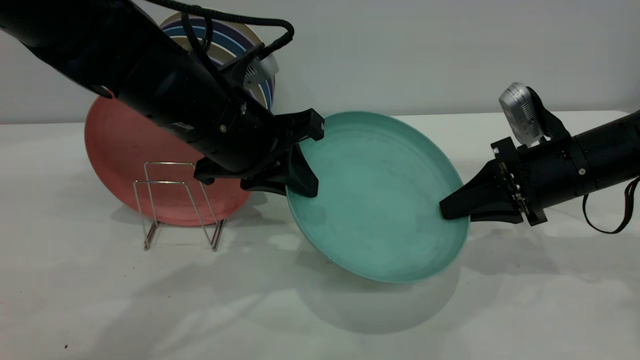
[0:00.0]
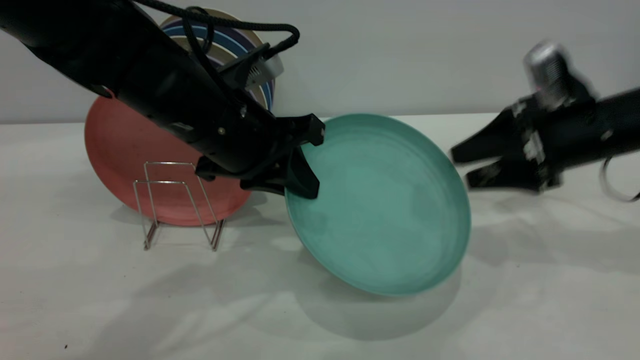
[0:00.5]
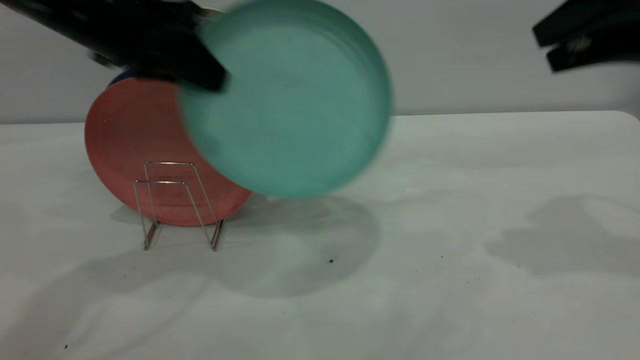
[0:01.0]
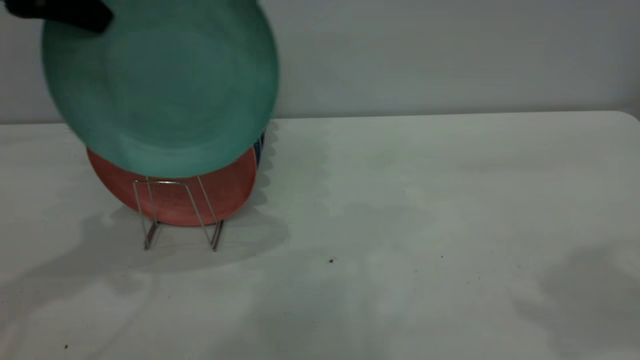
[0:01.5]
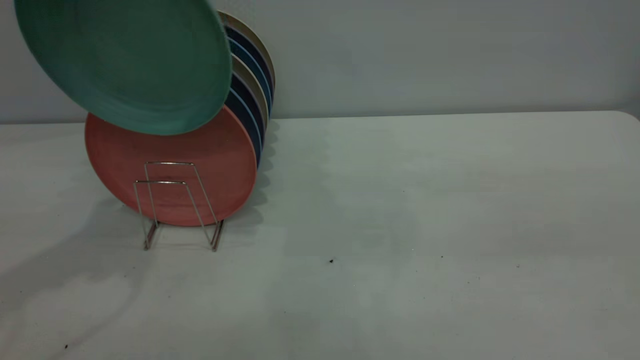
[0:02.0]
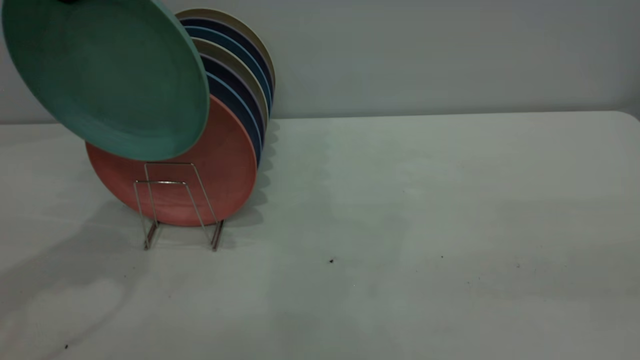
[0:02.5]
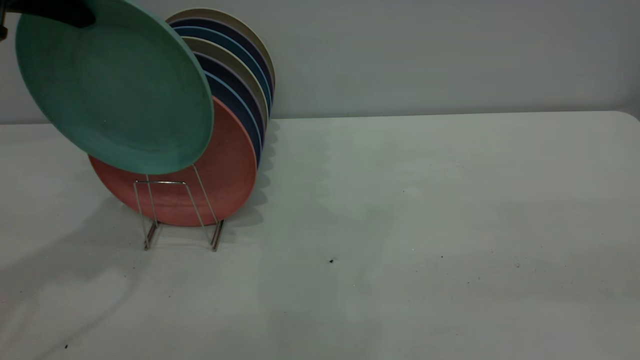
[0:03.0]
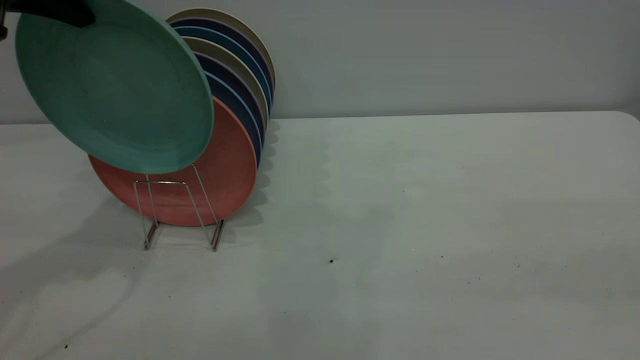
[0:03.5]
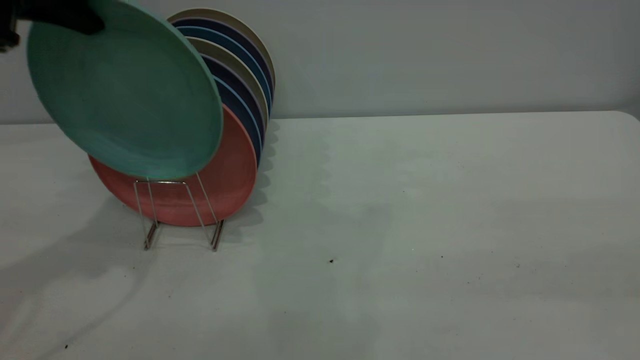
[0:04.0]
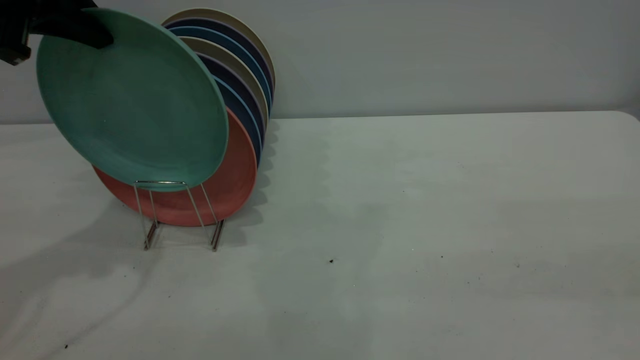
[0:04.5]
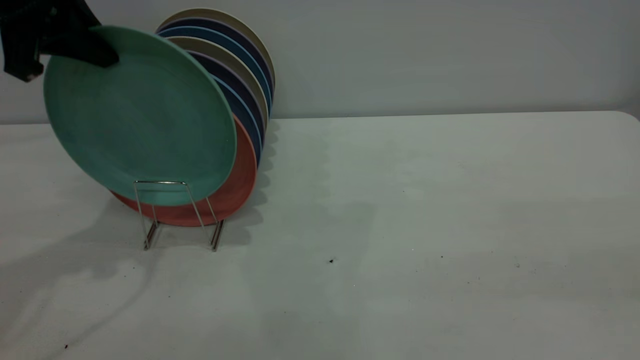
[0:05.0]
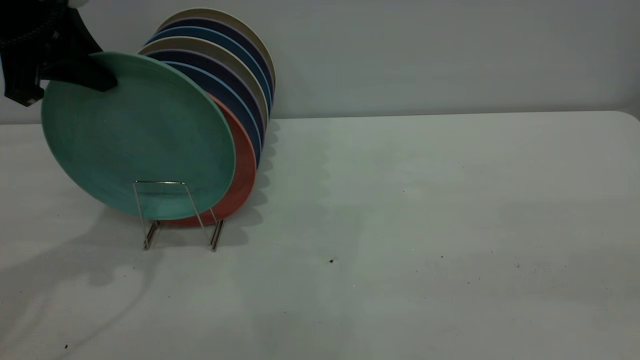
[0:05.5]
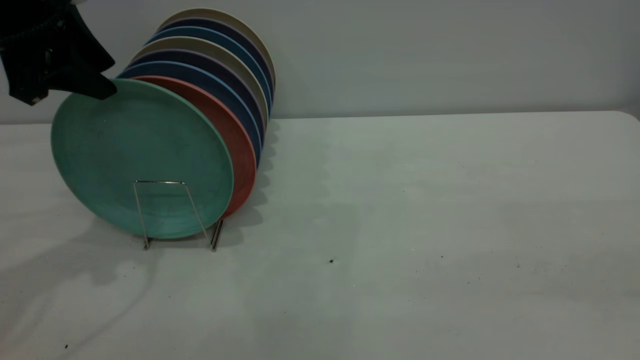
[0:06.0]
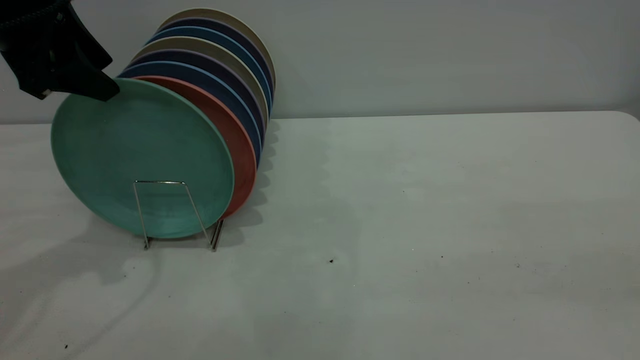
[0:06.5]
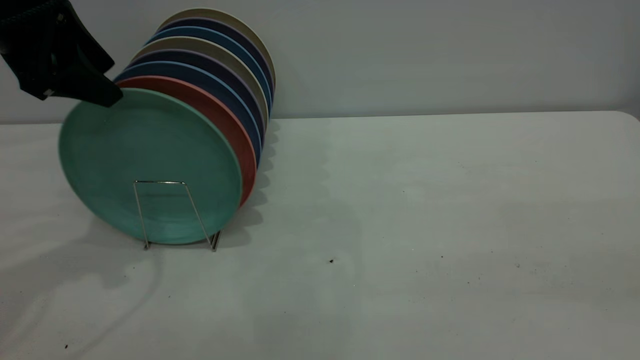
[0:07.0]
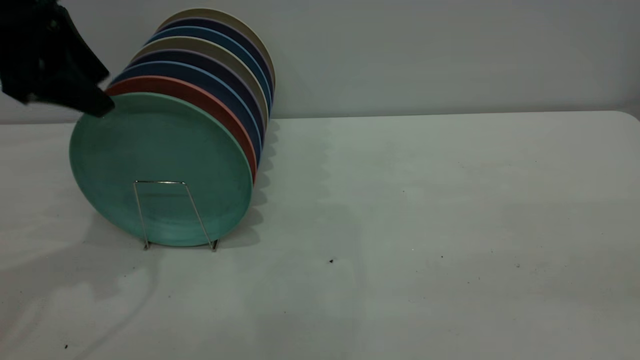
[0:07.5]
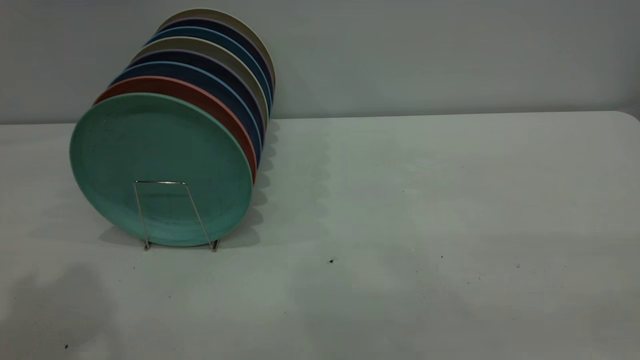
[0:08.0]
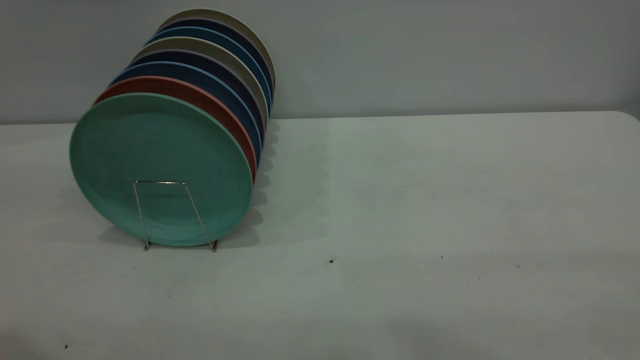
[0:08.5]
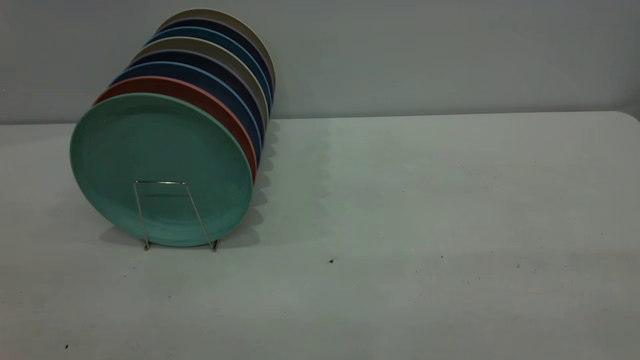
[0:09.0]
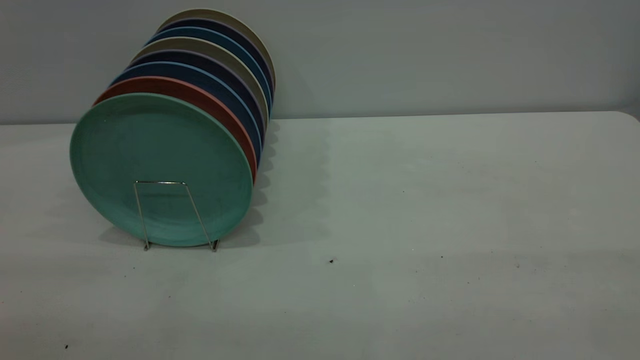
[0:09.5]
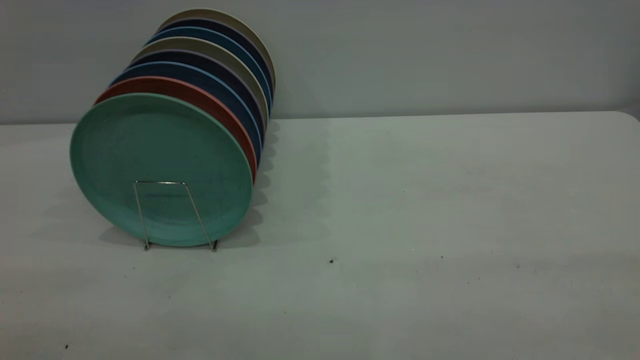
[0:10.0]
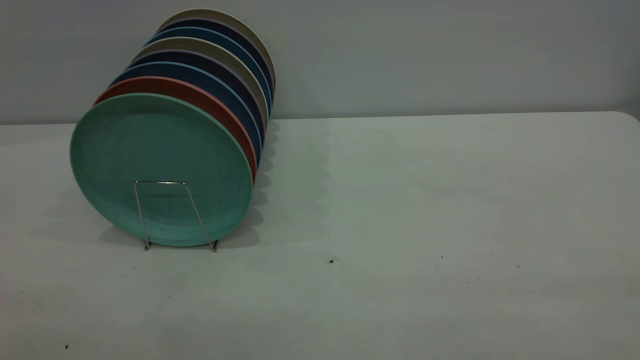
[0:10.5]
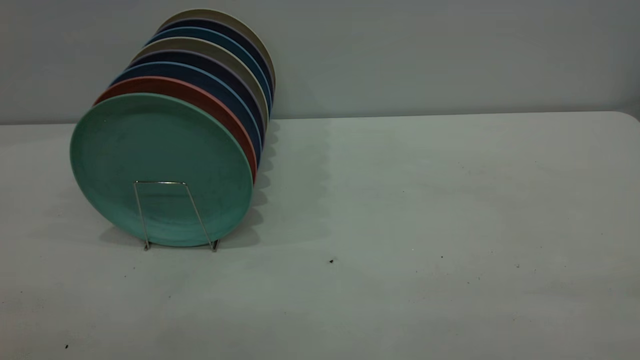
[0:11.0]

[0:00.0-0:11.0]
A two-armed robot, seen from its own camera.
Task of the whole recording: the right gripper grasp the green plate, the right gripper pass the green plate to the left gripper, and the left gripper place the green plate on the plate rack.
Step, 0:01.5 to 0:07.5: Place the plate on the shelf.
0:00.0 to 0:02.0: The right gripper moves upward and backward, roughly 35 cm, and opens up. Meanwhile the left gripper heads upward and to the left, covering approximately 25 cm.
0:03.5 to 0:05.5: The left gripper travels downward by roughly 5 cm.
0:05.5 to 0:07.5: The left gripper opens up.
0:07.5 to 0:09.0: The left gripper travels backward by some 25 cm.

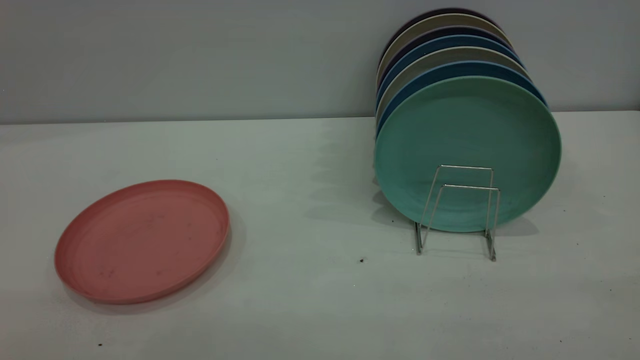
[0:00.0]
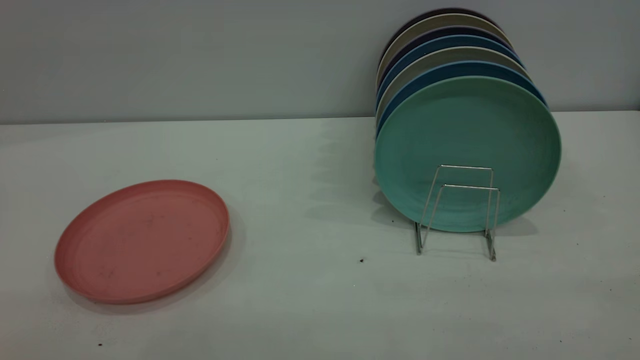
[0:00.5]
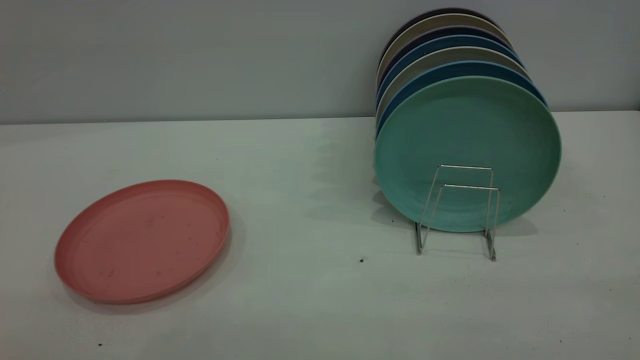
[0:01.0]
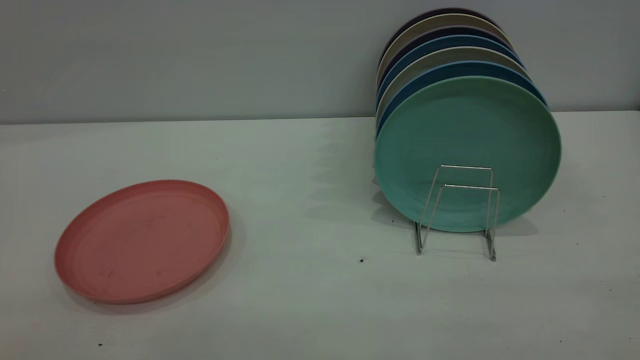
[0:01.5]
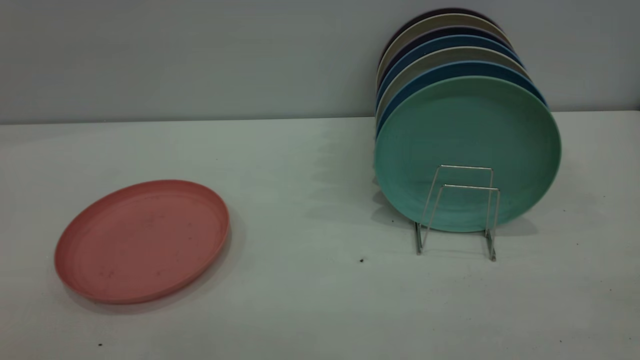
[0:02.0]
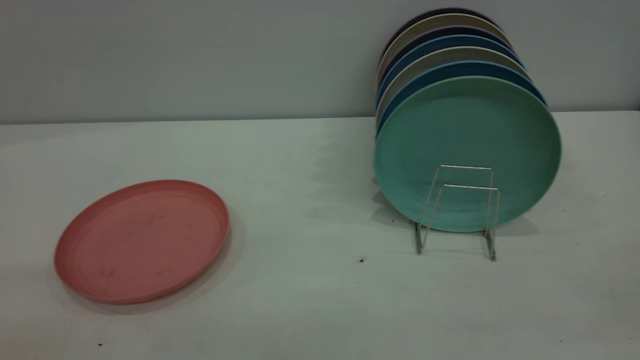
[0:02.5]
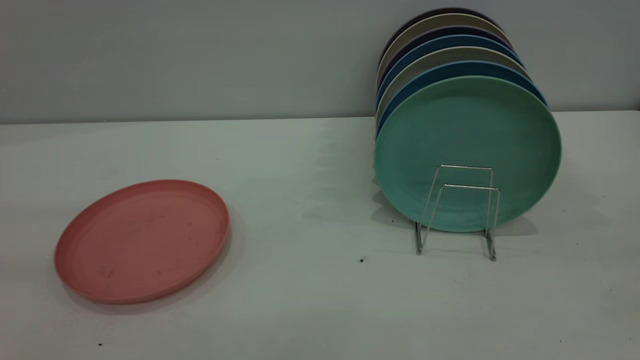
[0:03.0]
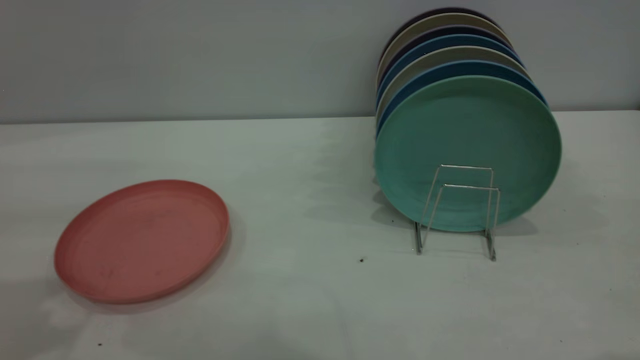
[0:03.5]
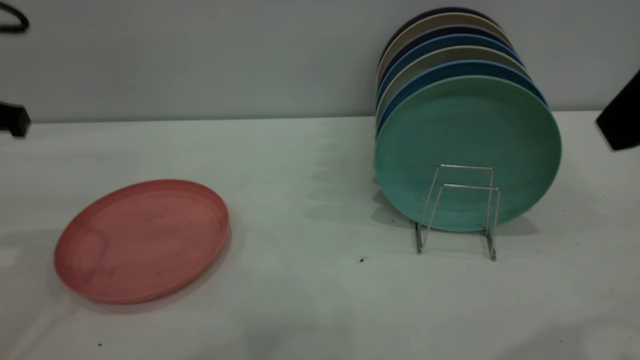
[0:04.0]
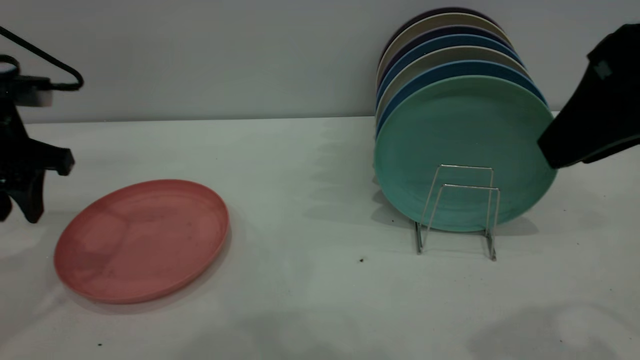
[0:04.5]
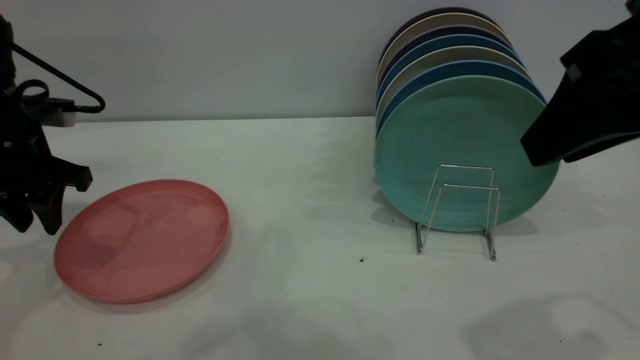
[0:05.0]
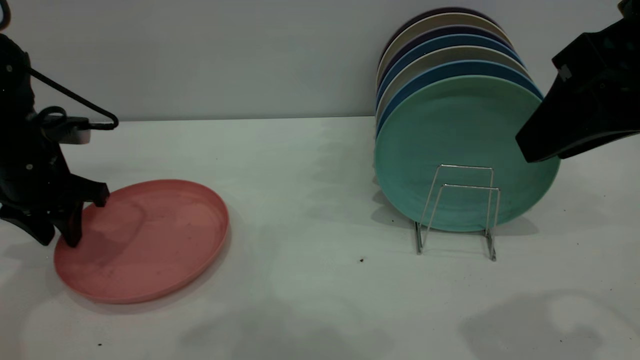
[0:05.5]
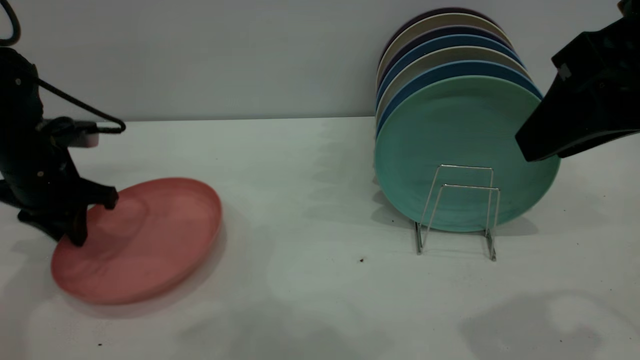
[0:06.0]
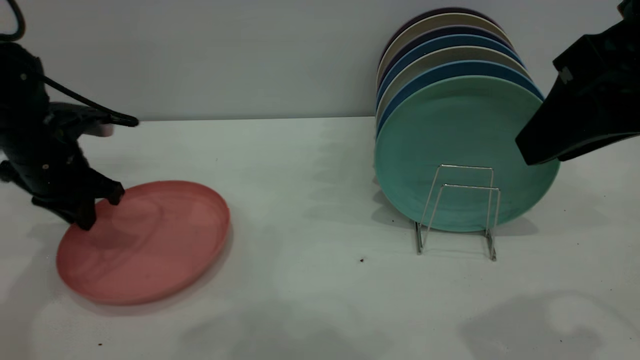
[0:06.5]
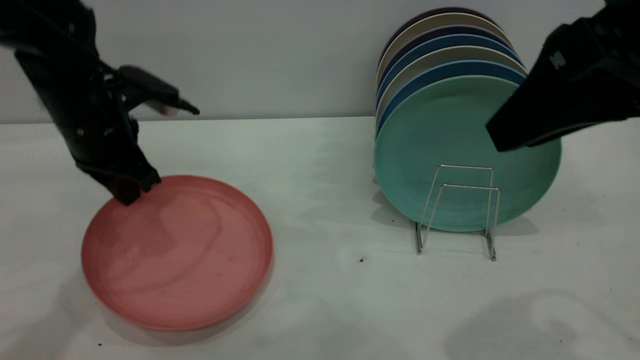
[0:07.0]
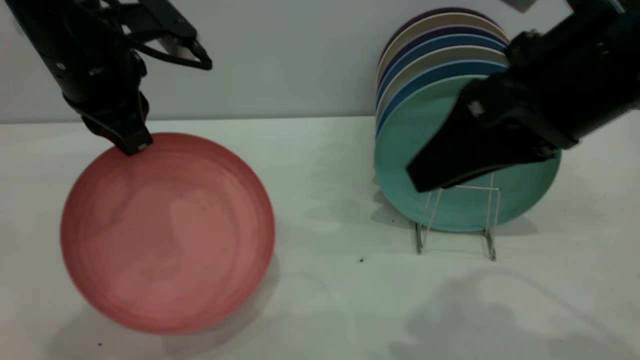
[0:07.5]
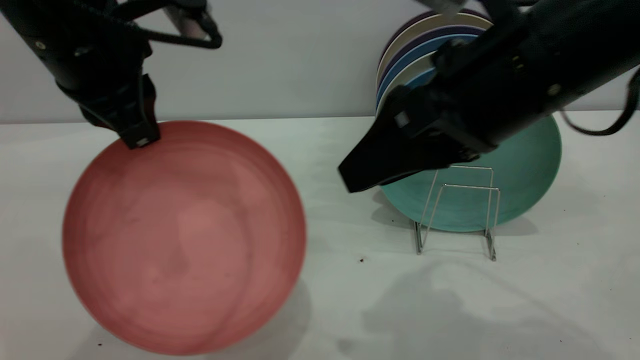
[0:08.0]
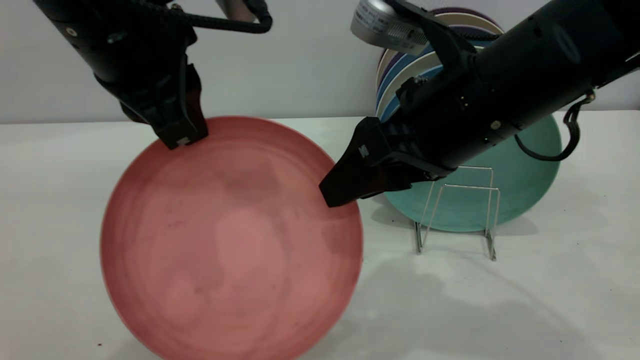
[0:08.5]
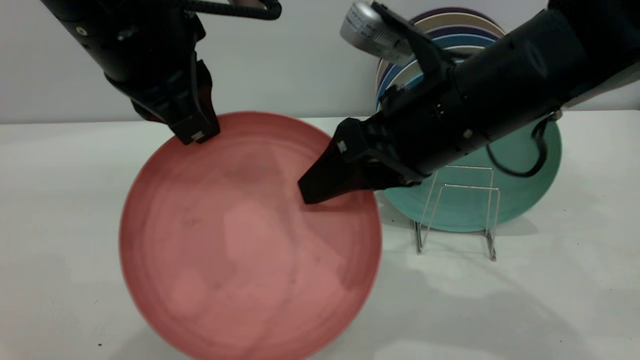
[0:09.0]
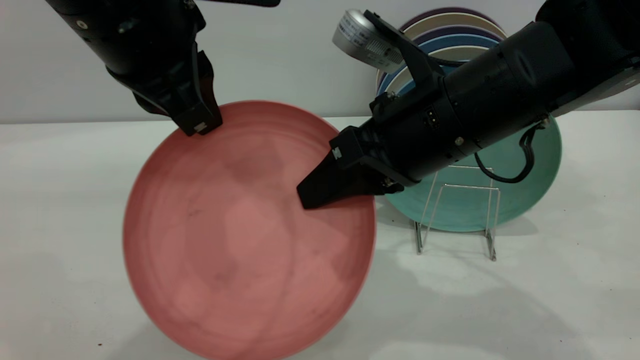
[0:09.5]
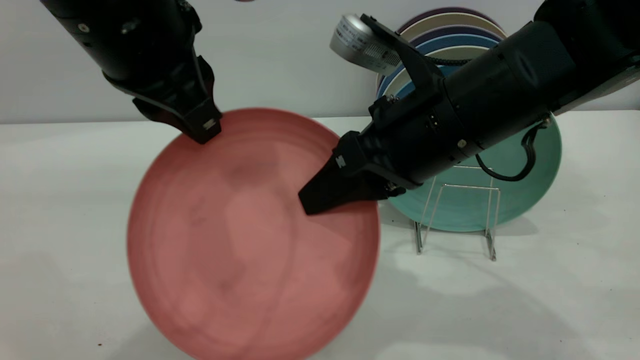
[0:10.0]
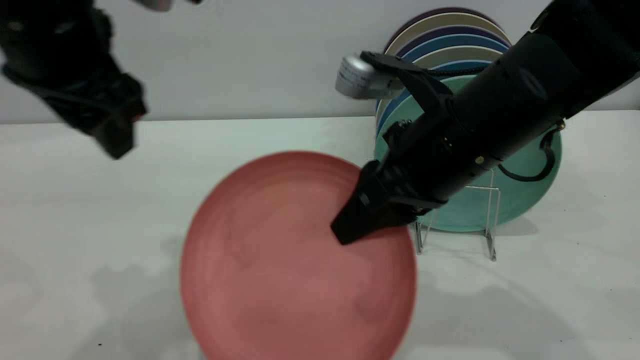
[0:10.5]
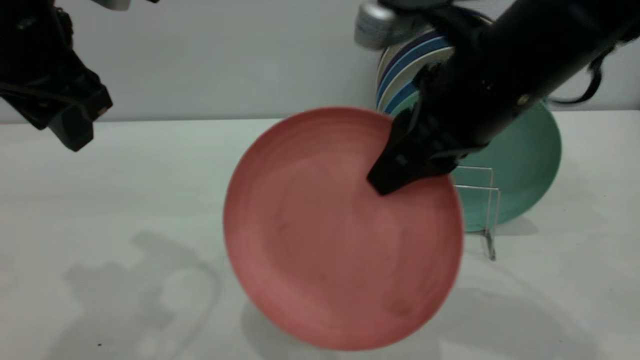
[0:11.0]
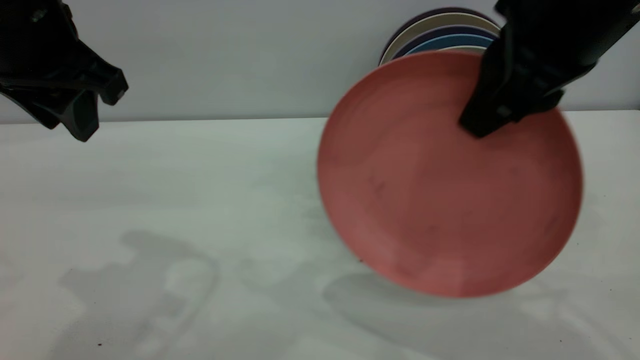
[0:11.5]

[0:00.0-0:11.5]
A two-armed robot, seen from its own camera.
Task of the whole recording: put the plate on the plate rack.
Step, 0:00.0 to 0:07.0: Pick up the plate with the left gripper.
Step, 0:07.5 to 0:10.0: Pass the plate from the left gripper to the right gripper.
0:02.0 to 0:04.0: The left gripper shifts some 35 cm forward, while the right gripper goes some 20 cm forward and to the left.
0:04.0 to 0:06.0: The left gripper moves downward and forward, roughly 15 cm, and closes up.
0:06.0 to 0:07.5: The left gripper travels upward and to the right by approximately 20 cm; the right gripper ends up some 5 cm from where it was.
0:07.5 to 0:09.5: The right gripper heads to the left and downward, covering about 10 cm, and closes. The left gripper shifts about 10 cm backward and to the right.
0:09.5 to 0:11.5: The left gripper goes approximately 10 cm to the left, and opens its fingers; the right gripper is displaced upward and to the right by about 15 cm.
